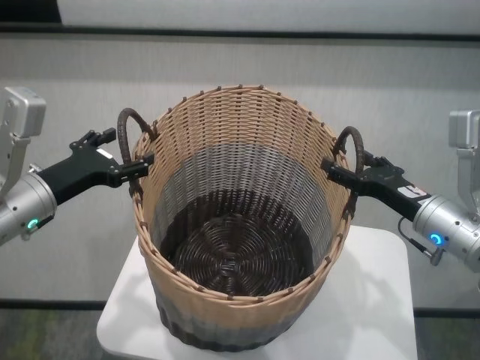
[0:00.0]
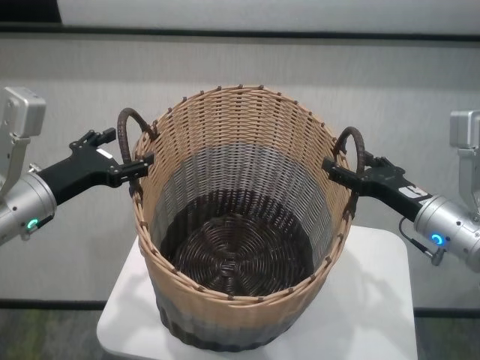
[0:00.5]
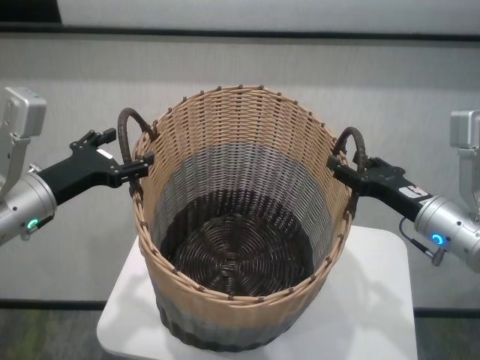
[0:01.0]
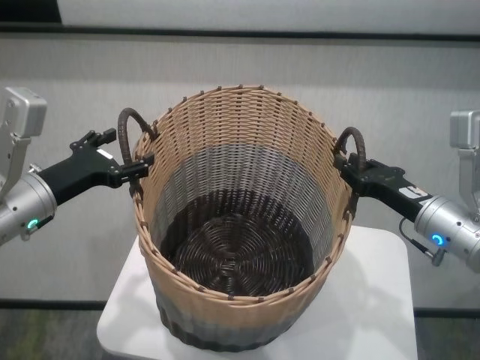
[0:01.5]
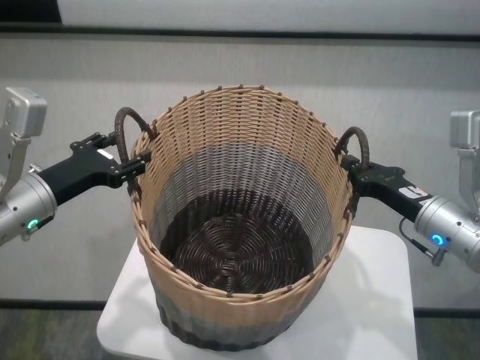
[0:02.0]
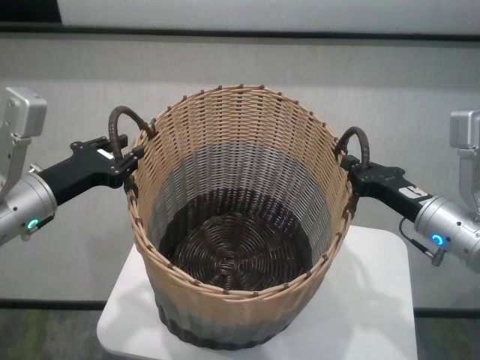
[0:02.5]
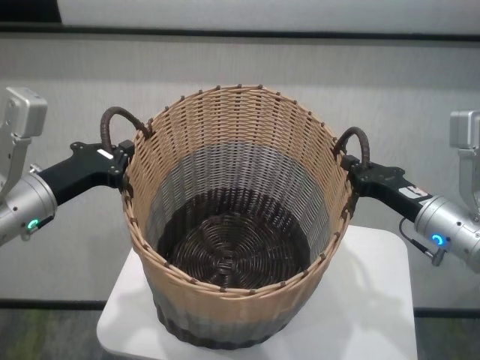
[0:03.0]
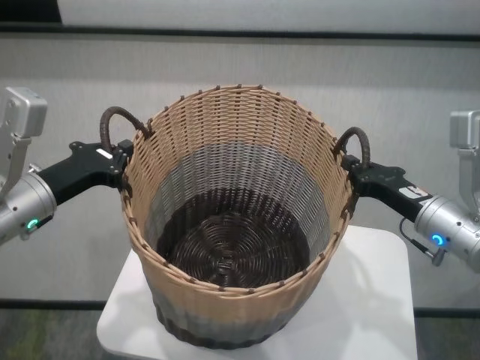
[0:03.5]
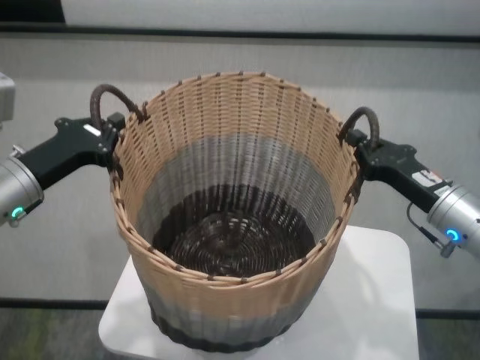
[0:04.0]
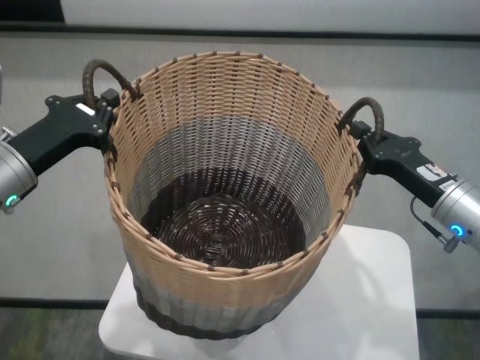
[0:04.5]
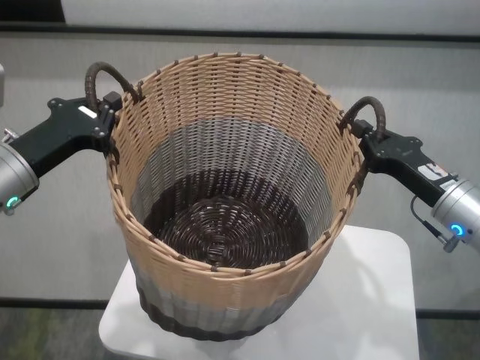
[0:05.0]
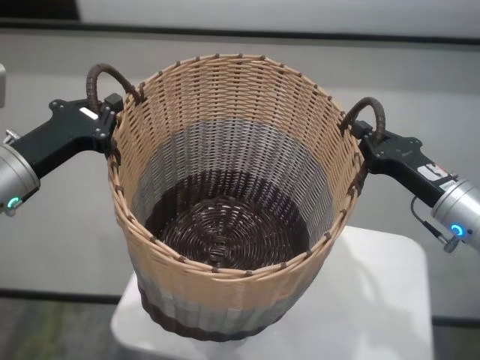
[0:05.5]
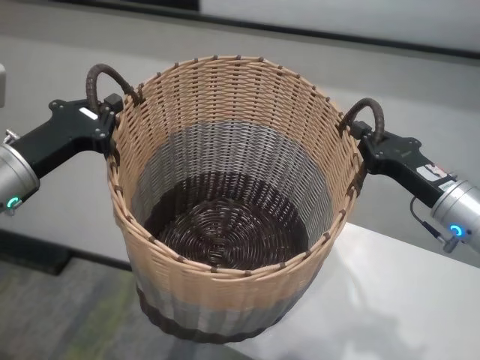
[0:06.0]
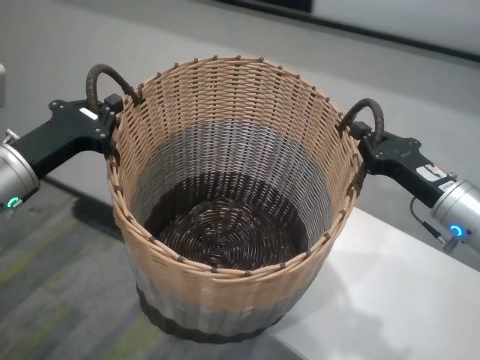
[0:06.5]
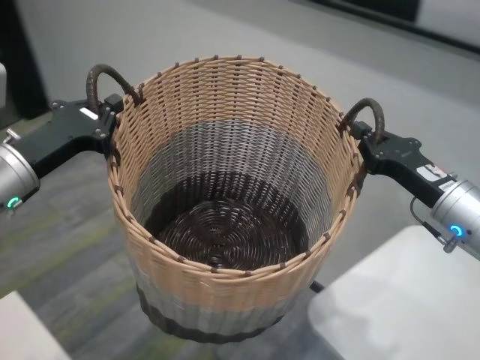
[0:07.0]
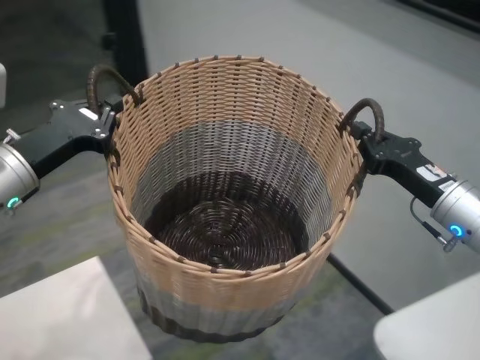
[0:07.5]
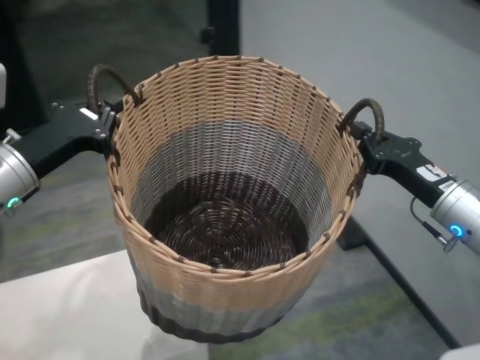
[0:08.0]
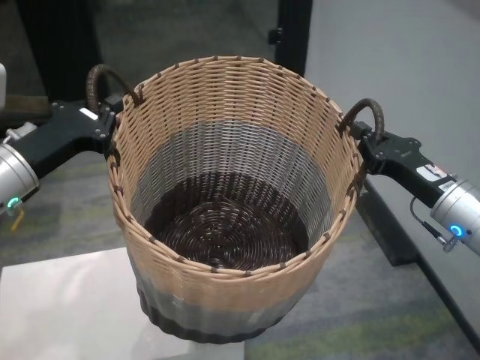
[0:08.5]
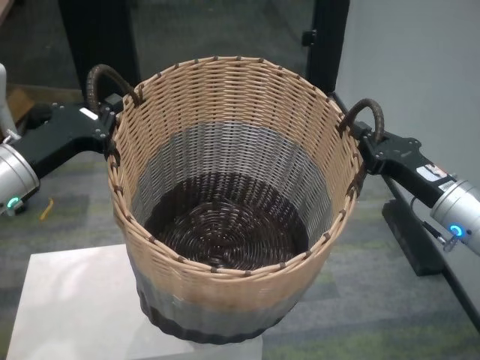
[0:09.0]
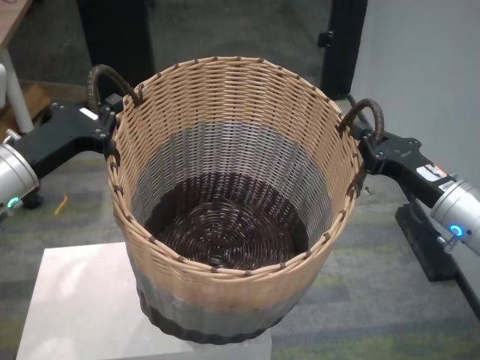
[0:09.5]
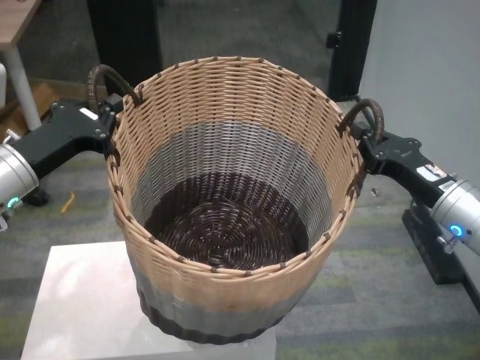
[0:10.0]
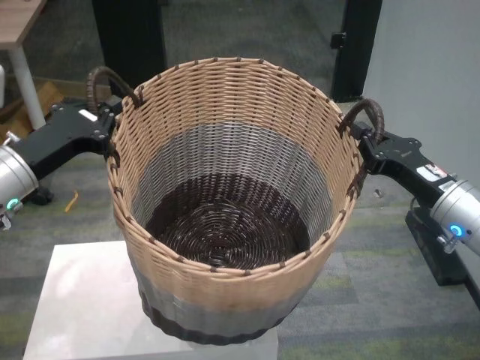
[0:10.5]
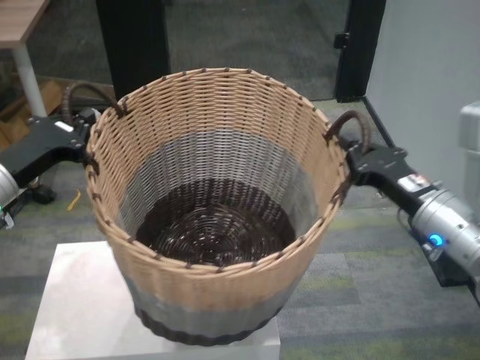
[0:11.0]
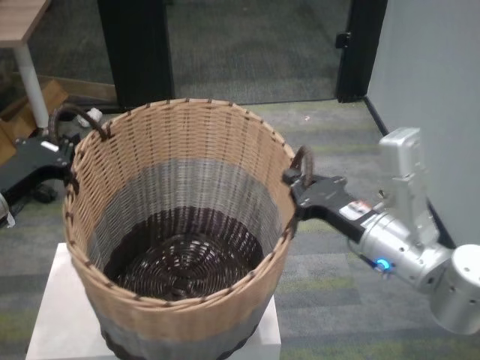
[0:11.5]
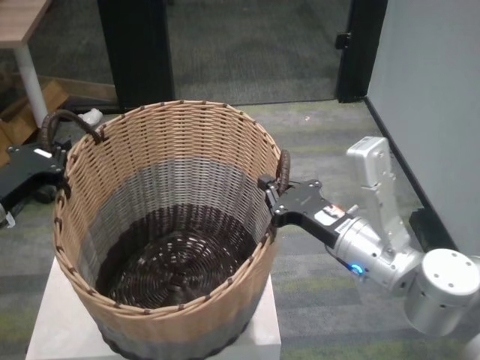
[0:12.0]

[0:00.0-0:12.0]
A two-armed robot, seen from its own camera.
Task of the whole recording: carry the clothes basket in coordination with both hands.
Step, 0:02.0 to 0:03.0: Grasp the basket with left gripper.
Step, 0:03.5 to 0:10.5: Move the basket above the other table.

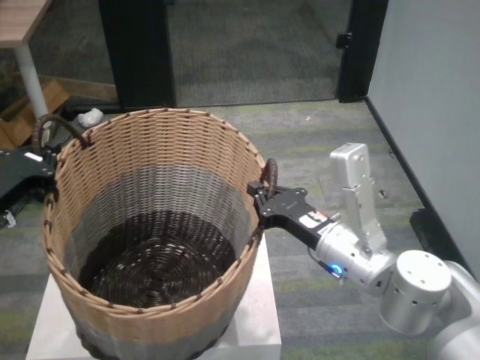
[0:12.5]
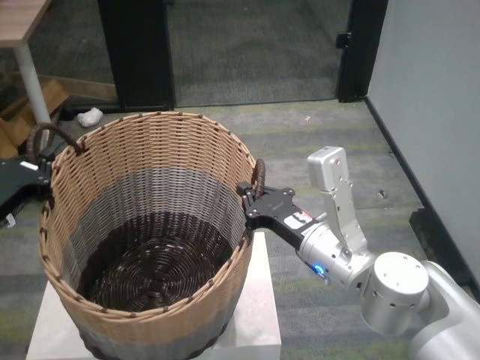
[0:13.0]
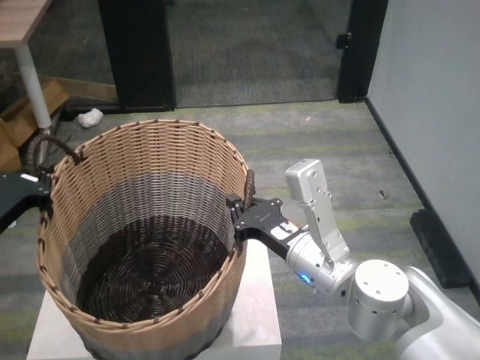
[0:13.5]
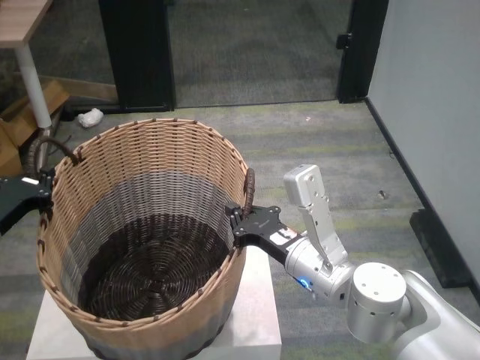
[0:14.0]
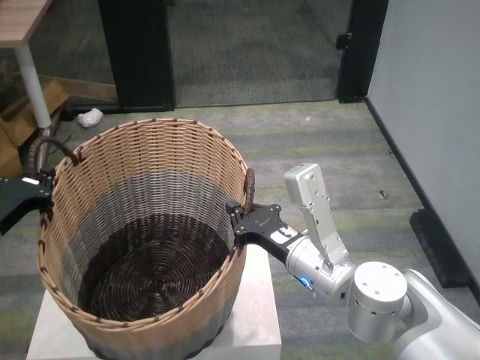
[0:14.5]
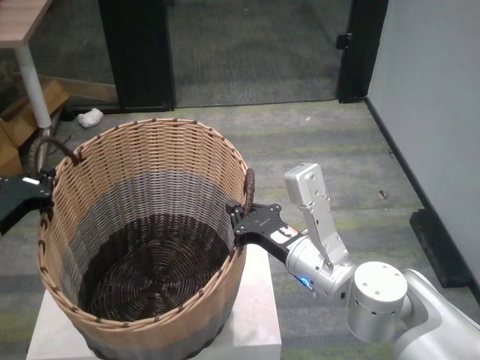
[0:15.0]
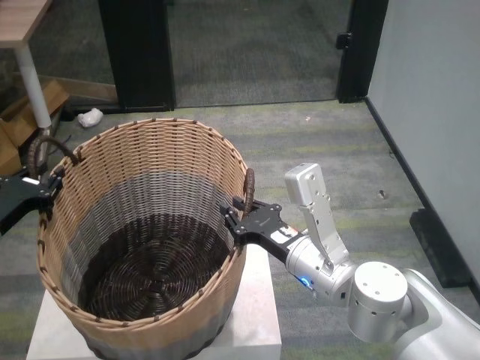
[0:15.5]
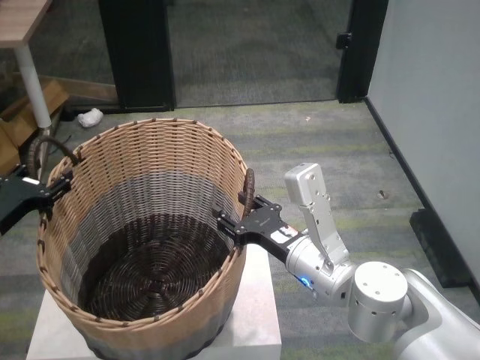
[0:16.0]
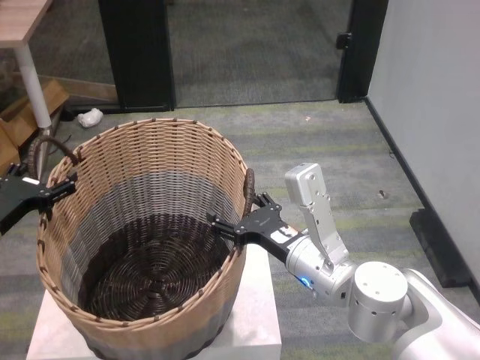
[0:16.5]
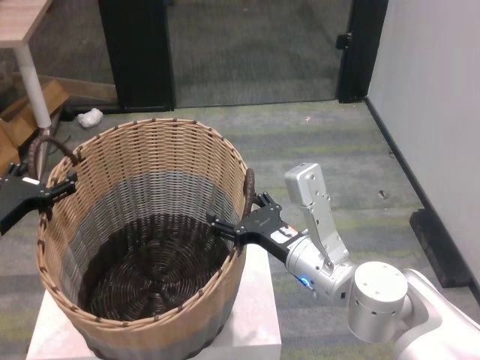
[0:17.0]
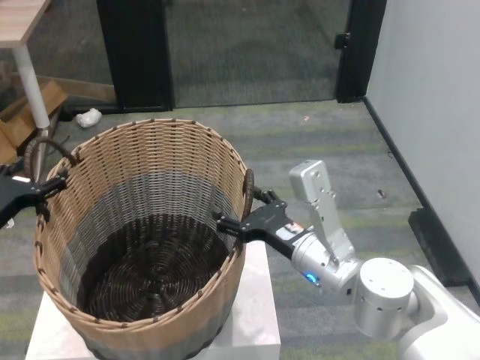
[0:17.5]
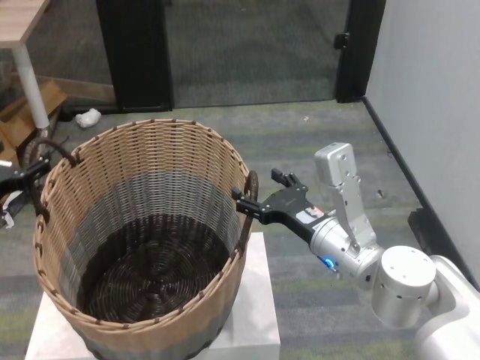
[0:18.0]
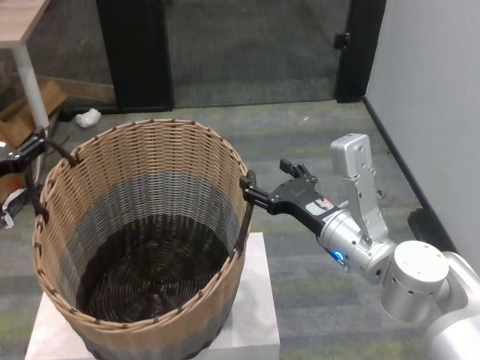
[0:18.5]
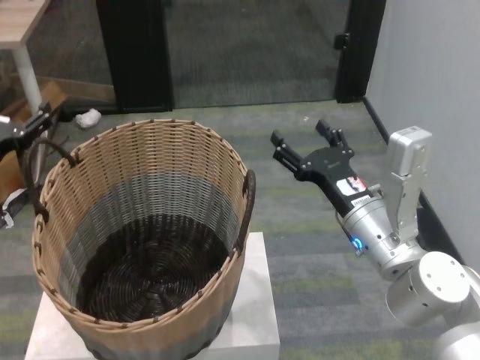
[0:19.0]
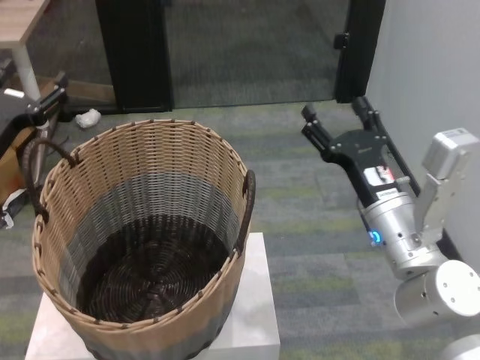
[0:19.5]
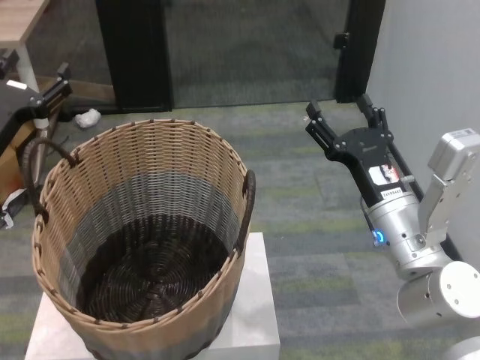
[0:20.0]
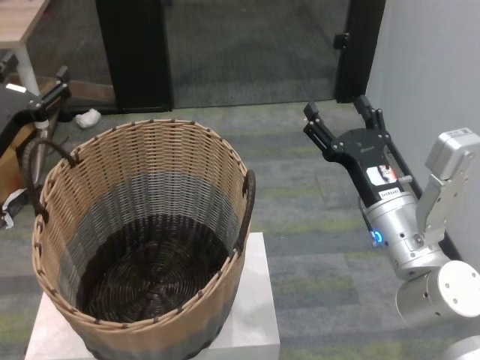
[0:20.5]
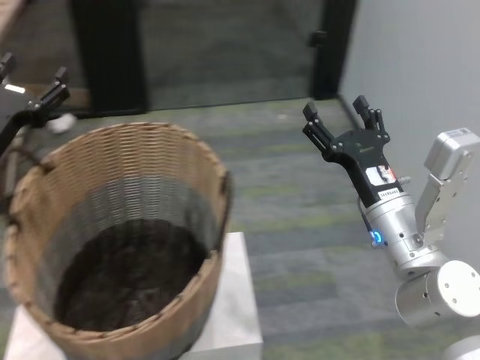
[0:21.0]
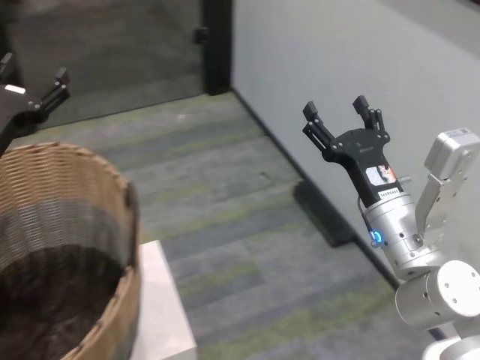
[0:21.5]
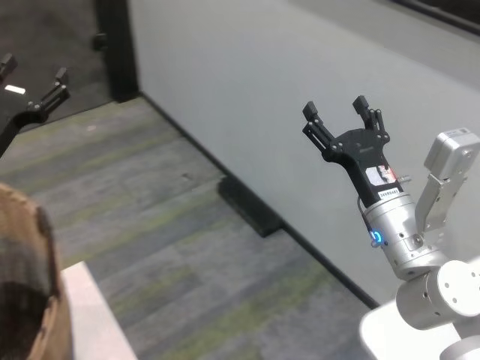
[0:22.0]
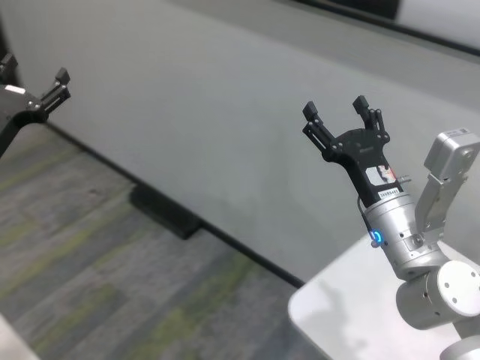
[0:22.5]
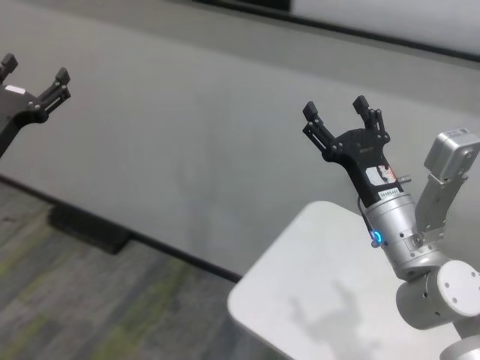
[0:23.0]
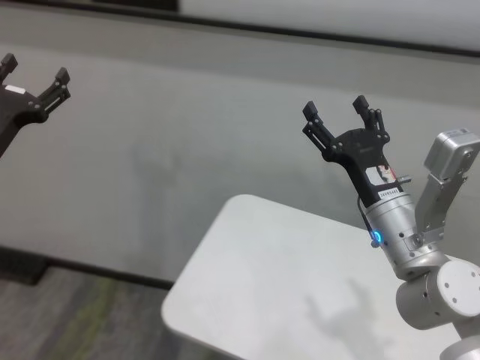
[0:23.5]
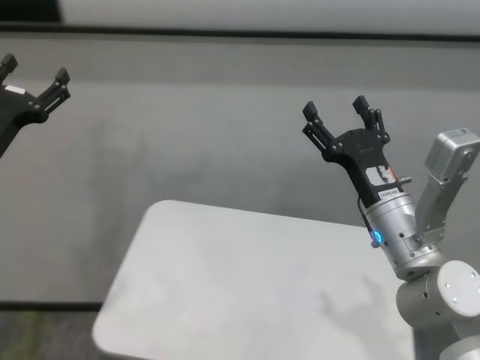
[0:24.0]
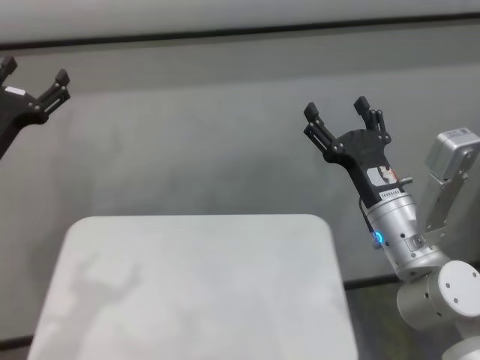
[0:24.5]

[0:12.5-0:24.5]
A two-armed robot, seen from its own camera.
Task of the whole recording: carry the clothes basket in coordination with both hands.
Step, 0:12.5 to 0:17.5: Place the basket on the table with both grippers.
